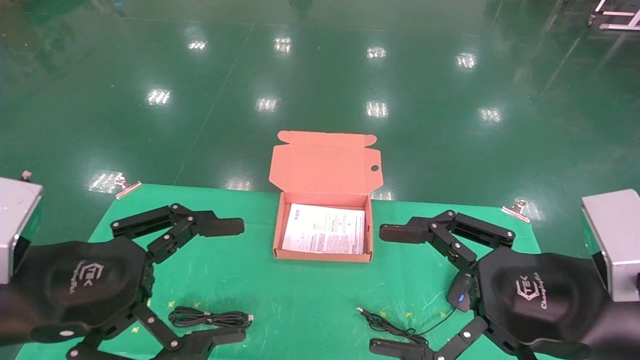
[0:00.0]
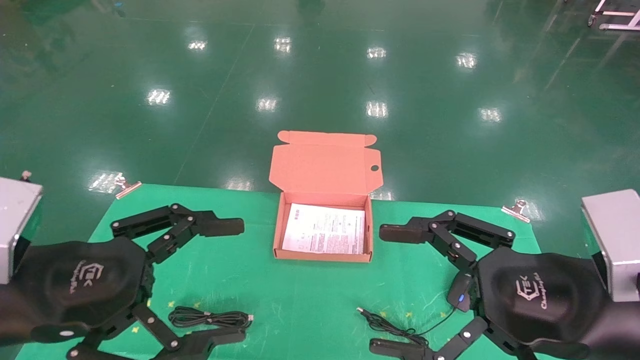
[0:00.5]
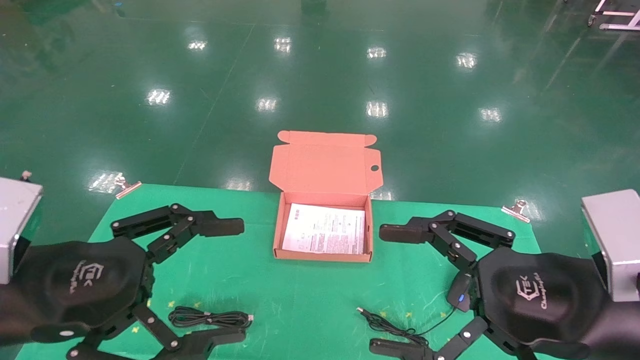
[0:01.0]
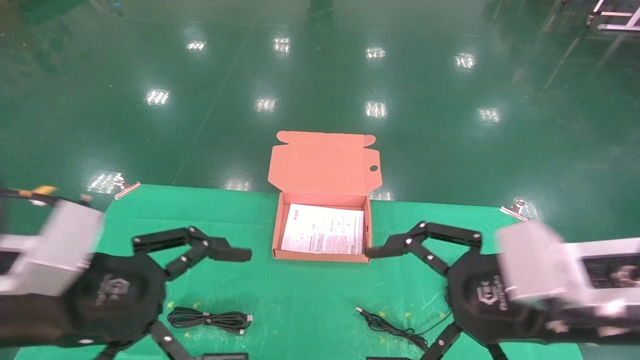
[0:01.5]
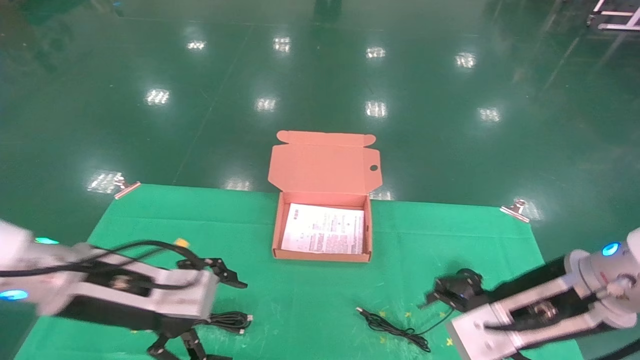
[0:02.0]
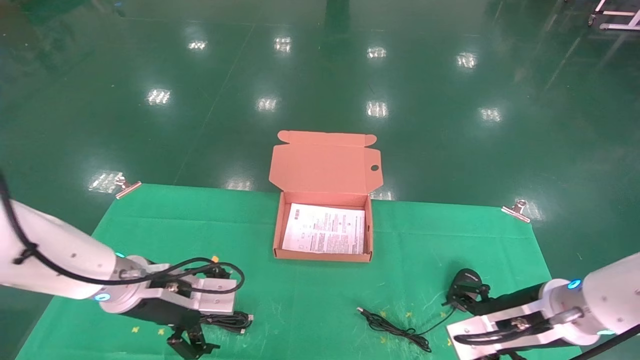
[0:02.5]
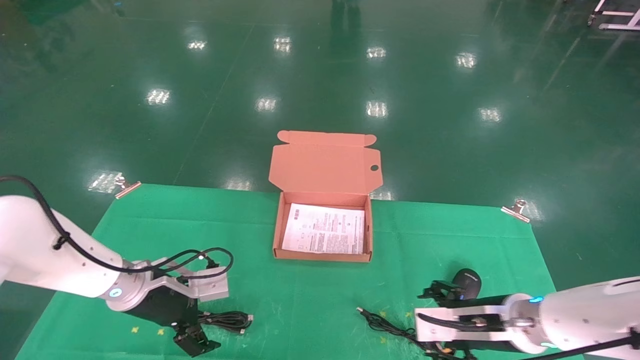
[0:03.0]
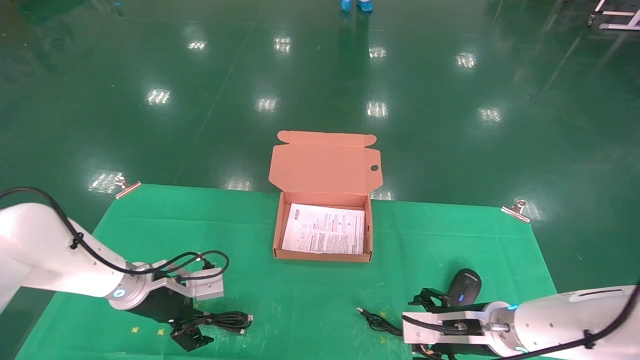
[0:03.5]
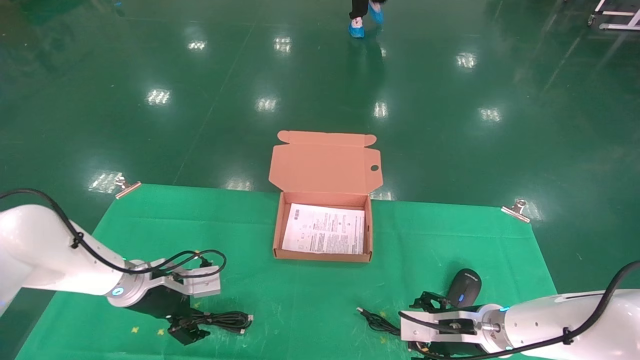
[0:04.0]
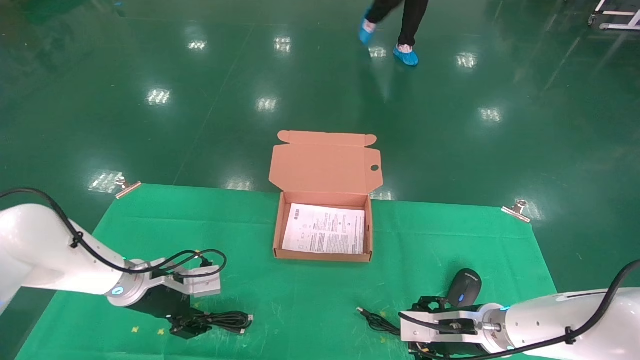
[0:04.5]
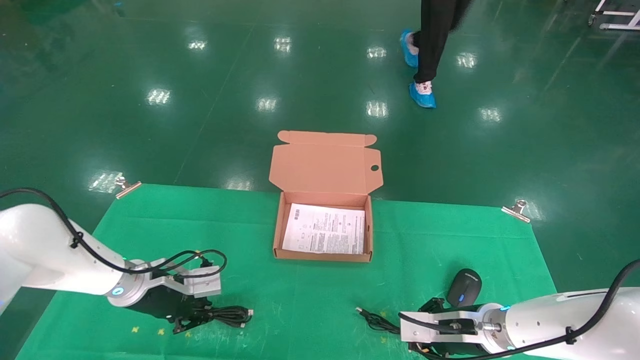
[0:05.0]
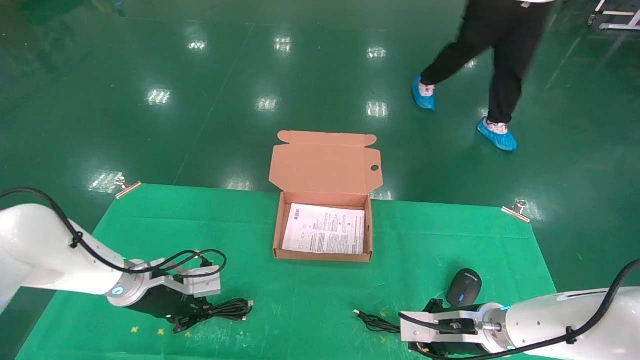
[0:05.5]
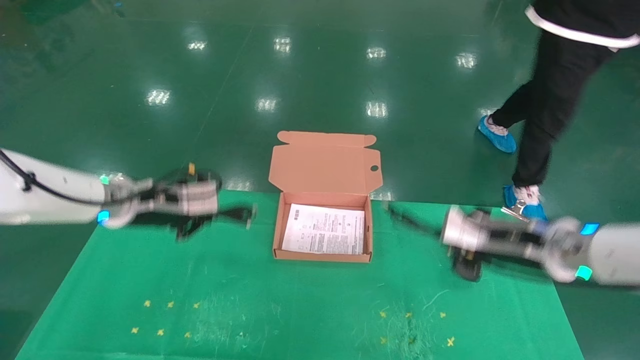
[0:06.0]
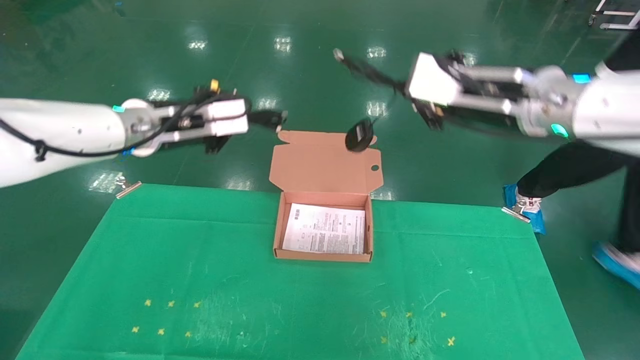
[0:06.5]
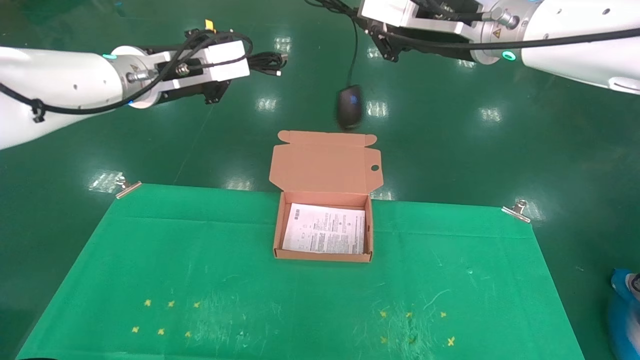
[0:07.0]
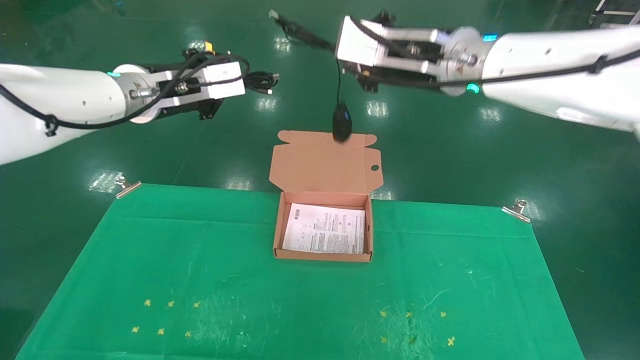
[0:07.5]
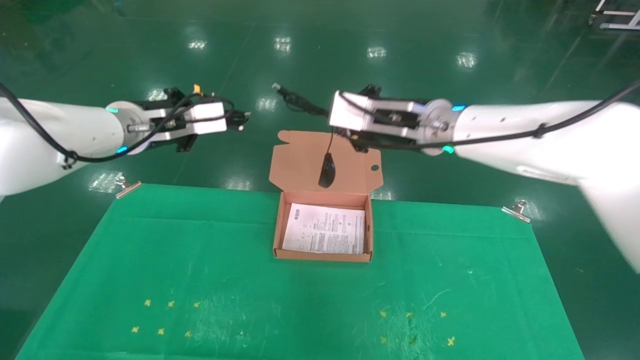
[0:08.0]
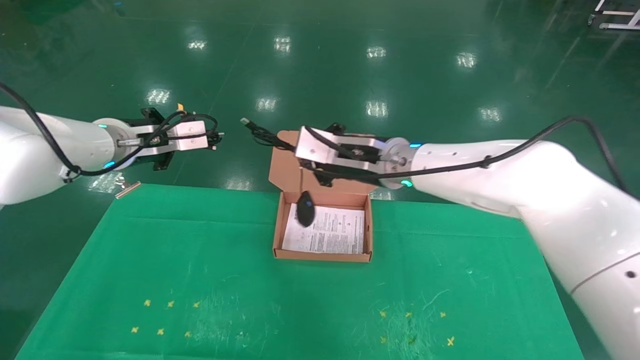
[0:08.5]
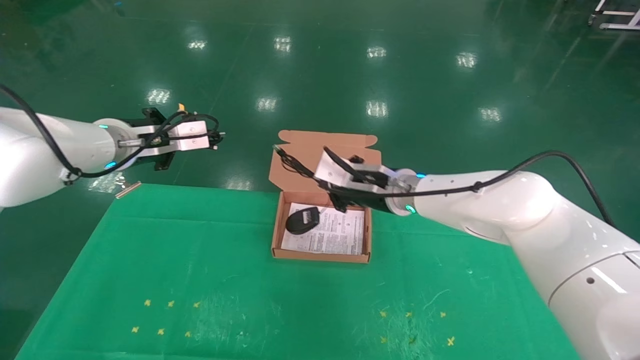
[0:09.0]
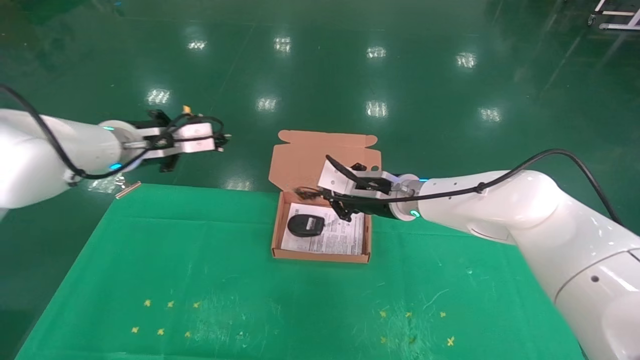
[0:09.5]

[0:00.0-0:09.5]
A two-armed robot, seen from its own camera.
Task of the whole recording: grasp data cable left put into box grasp mouse right put into box.
Step, 0:01.0 to 0:05.5: Grab and pick up both the mouse and power cord from the accessory packaging area at the same time.
0:00.0 to 0:02.0: The grippers both shift forward by about 10 cm.
0:02.0 to 0:04.0: The right gripper moves downward and forward, roughly 20 cm, while the left gripper moves forward and downward, roughly 20 cm.
0:04.0 to 0:05.5: The left gripper closes its fingers. Meanwhile the right gripper closes up.
0:05.5 to 0:07.5: The two grippers go roughly 30 cm upward.
0:07.5 to 0:09.5: The left gripper shifts some 10 cm downward. Meanwhile the right gripper shifts roughly 20 cm downward.

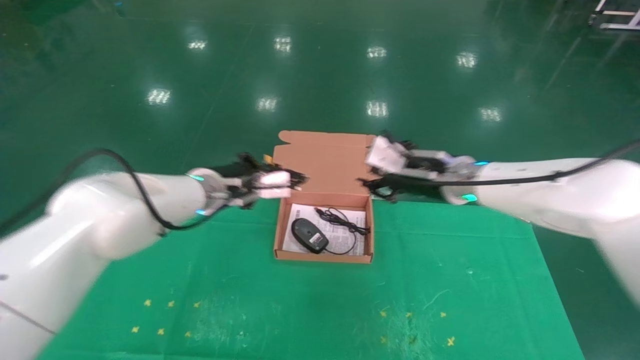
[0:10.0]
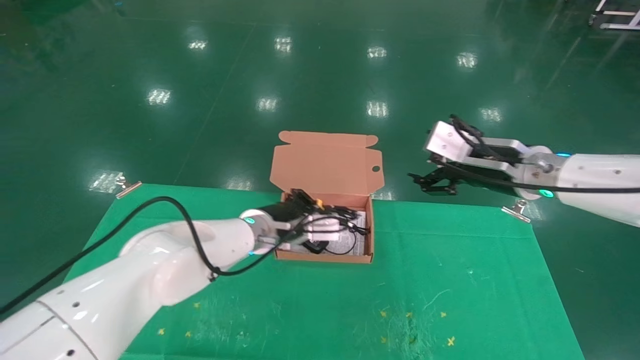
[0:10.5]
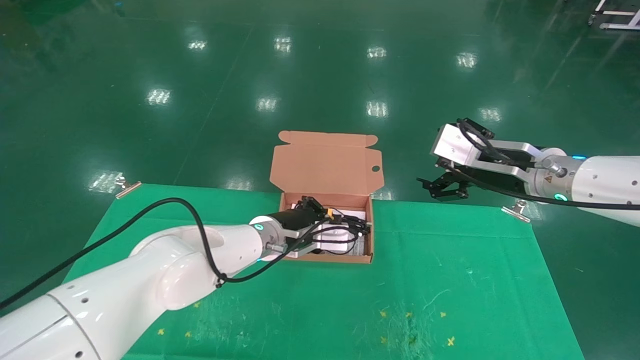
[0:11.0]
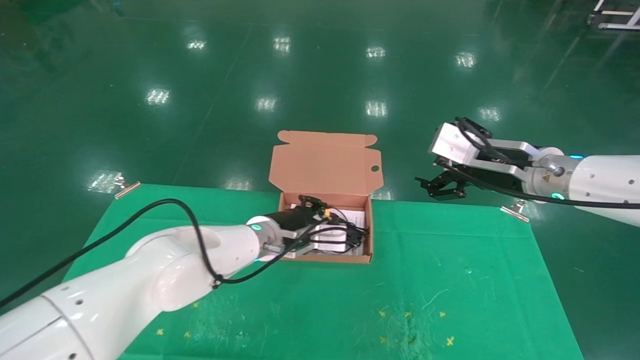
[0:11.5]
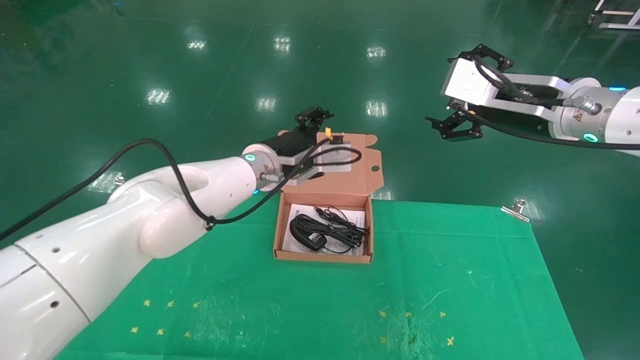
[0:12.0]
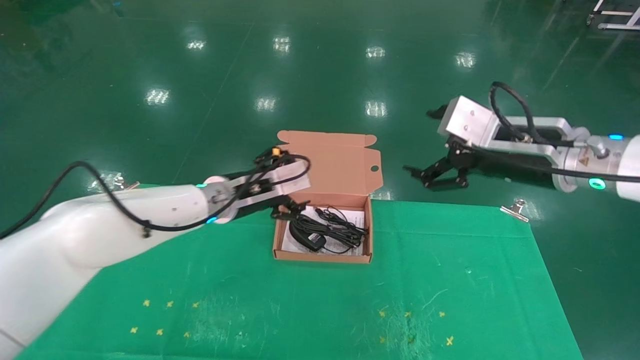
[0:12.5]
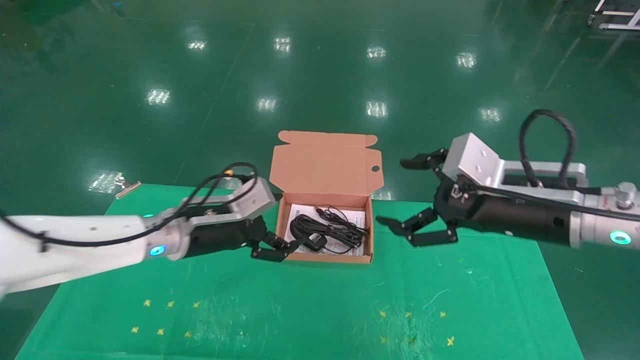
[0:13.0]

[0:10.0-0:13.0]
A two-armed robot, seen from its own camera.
Task of the whole recording: grasp data cable left put into box grasp mouse right put into box.
0:10.0 to 0:11.5: The left gripper travels to the right by approximately 10 cm. The right gripper travels to the right, backward and upward by some 10 cm, and opens.
0:11.5 to 0:13.0: The left gripper is displaced to the left and backward by about 15 cm, and opens. Meanwhile the right gripper is displaced backward by roughly 5 cm.

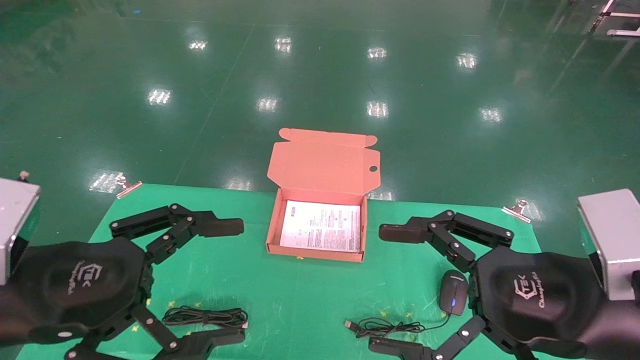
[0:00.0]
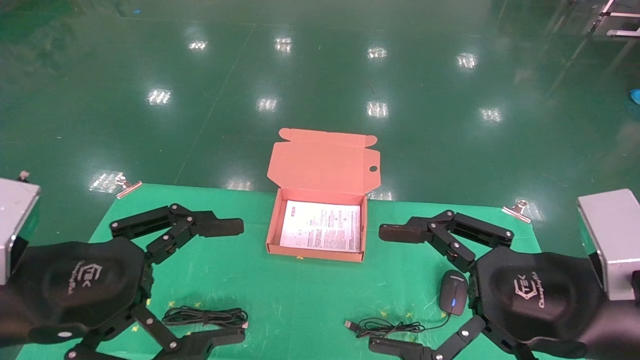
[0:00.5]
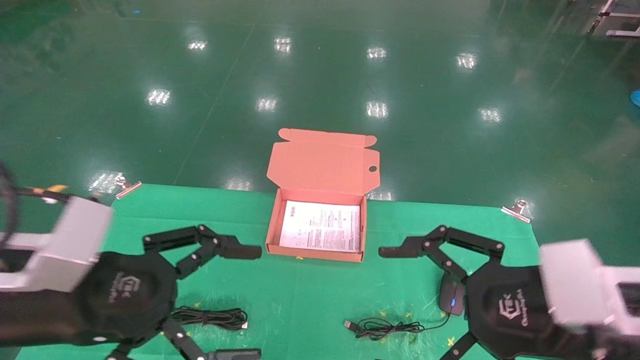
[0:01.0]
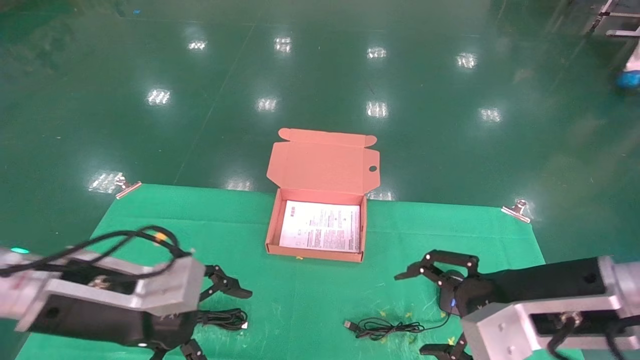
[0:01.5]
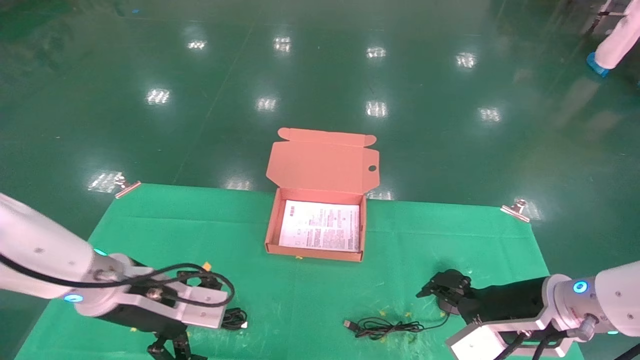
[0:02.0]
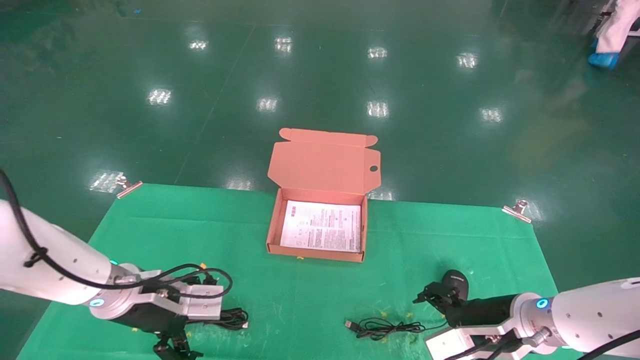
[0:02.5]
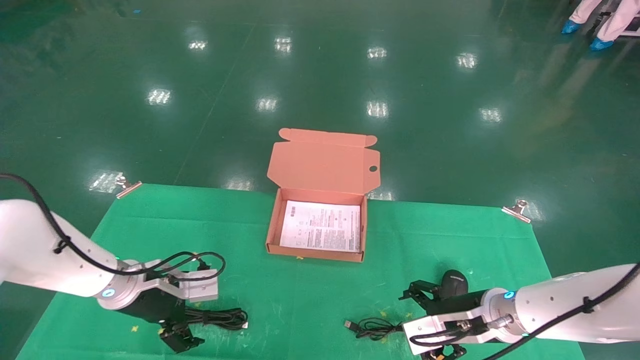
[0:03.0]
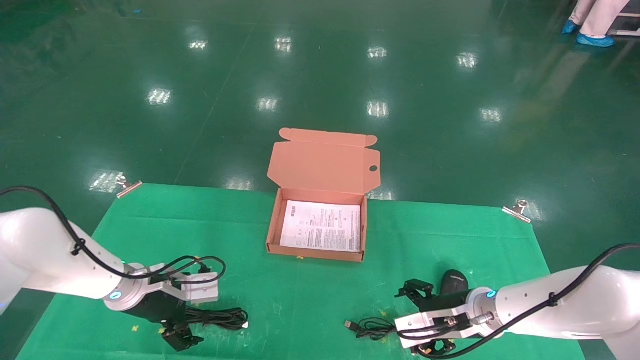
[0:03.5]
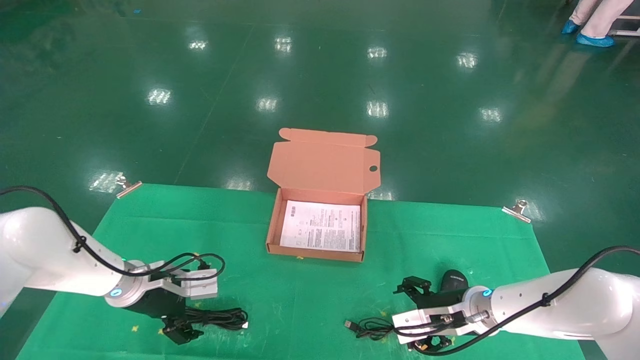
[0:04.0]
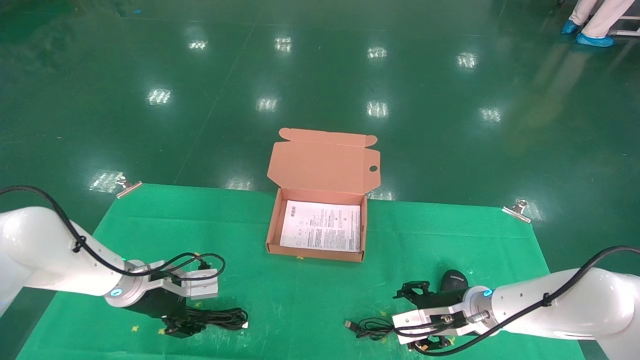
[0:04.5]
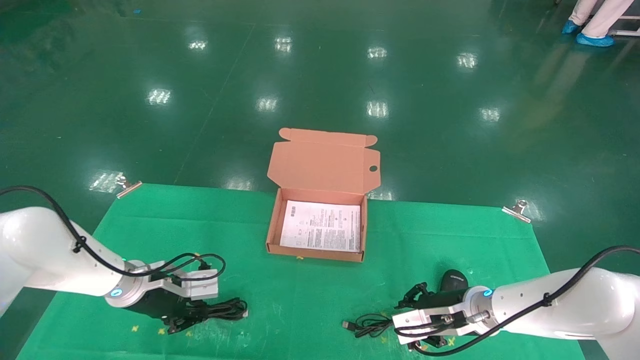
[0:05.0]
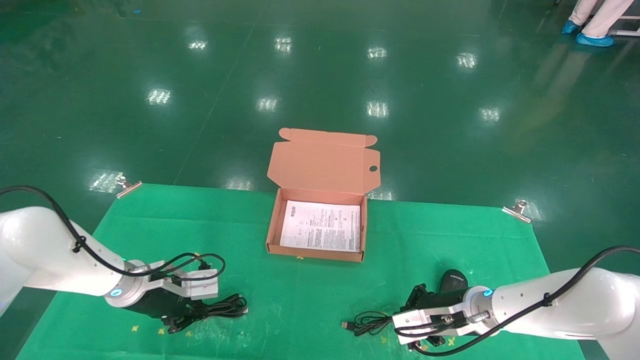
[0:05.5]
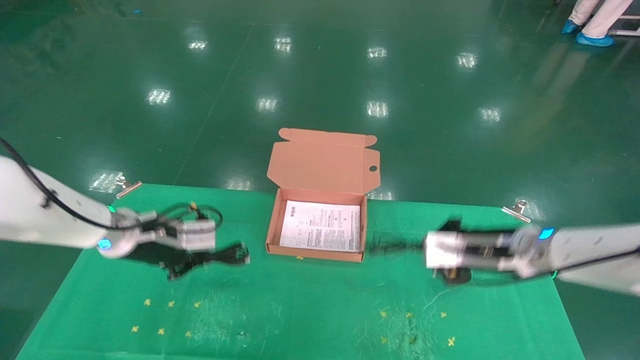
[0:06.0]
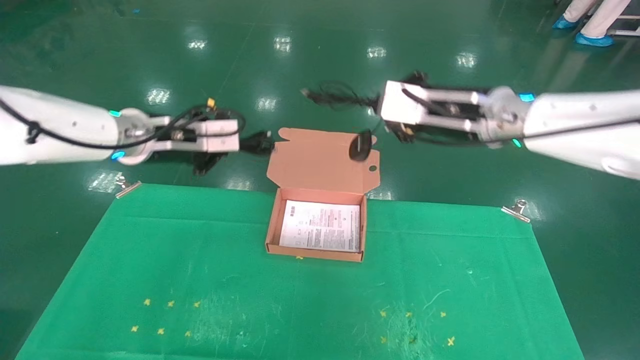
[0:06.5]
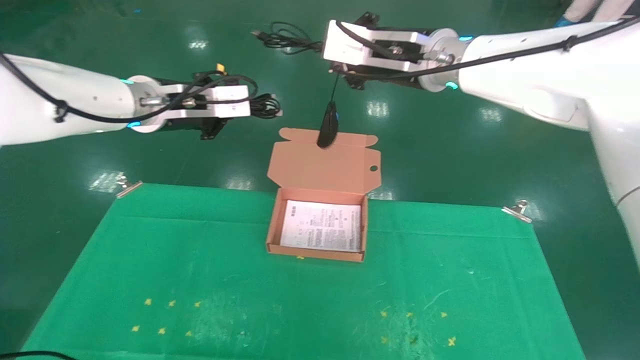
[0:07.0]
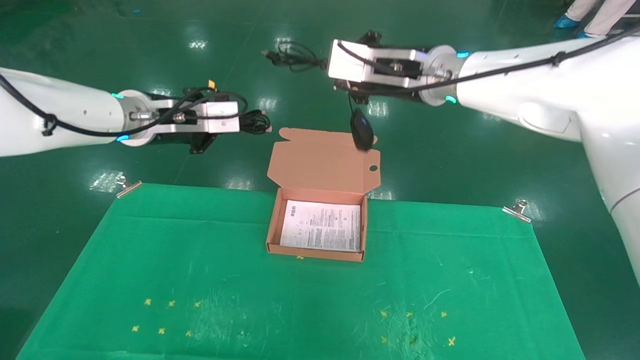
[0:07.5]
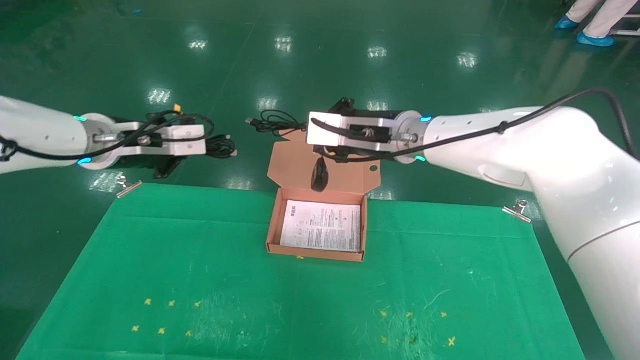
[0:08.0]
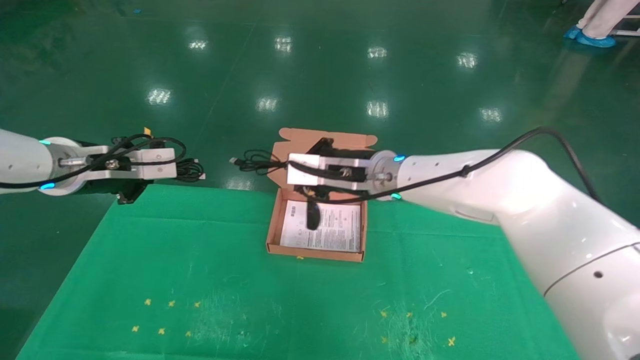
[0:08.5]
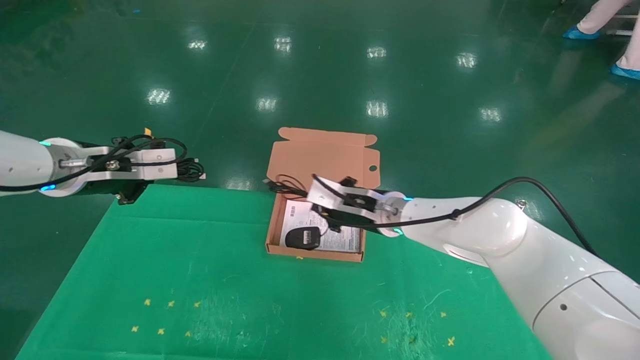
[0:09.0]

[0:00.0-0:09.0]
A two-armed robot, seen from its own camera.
Task of the whole recording: grasp data cable left put into box grasp mouse right put into box.
Step, 0:01.5 to 0:05.0: Grab and pick up both the mouse and power cord from the accessory packaging area at the same time.
0:00.0 to 0:02.0: Both grippers move forward and downward, roughly 15 cm.
0:02.0 to 0:04.5: The right gripper moves forward and downward, roughly 15 cm; the left gripper is displaced forward, downward and to the left by some 15 cm, and closes up.
0:04.5 to 0:07.0: The grippers both shift upward by approximately 30 cm. The left gripper closes, while the right gripper closes up.
0:07.0 to 0:09.0: The right gripper moves downward, about 20 cm, while the left gripper travels to the left and downward by about 10 cm.
